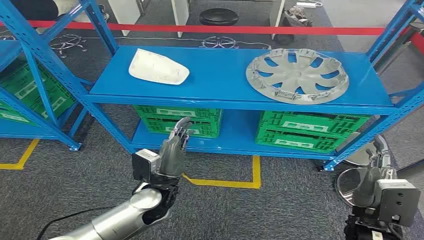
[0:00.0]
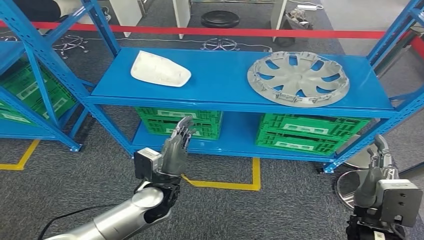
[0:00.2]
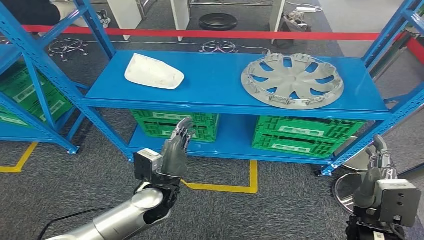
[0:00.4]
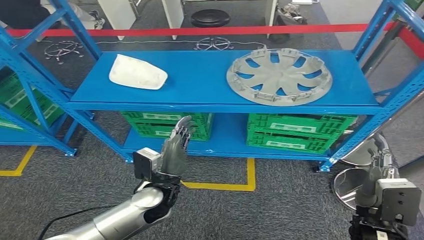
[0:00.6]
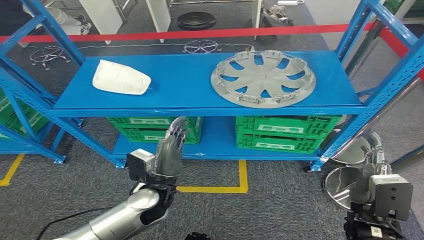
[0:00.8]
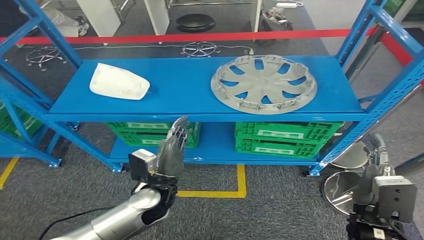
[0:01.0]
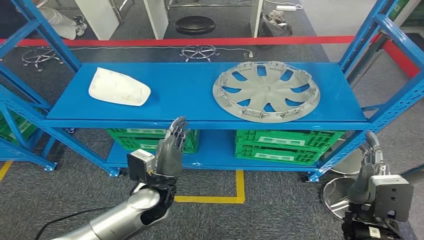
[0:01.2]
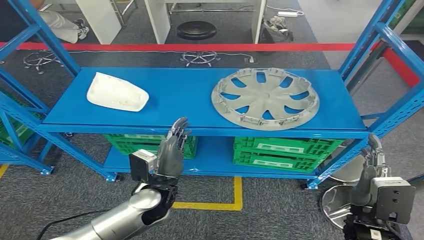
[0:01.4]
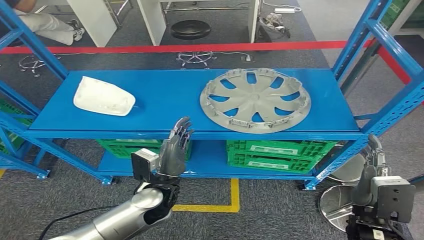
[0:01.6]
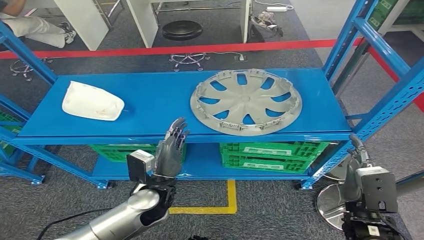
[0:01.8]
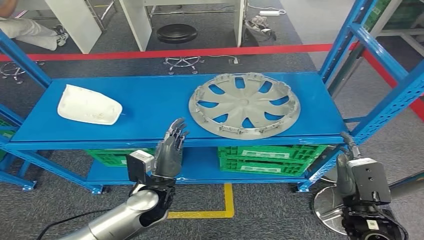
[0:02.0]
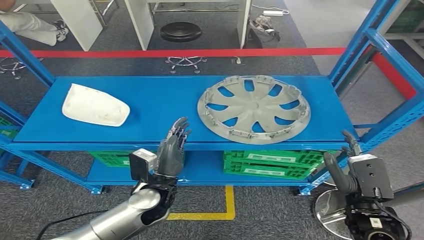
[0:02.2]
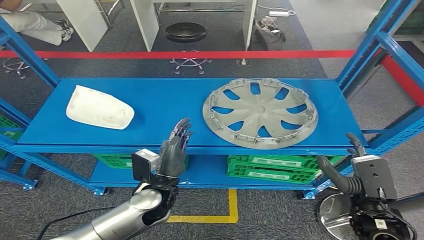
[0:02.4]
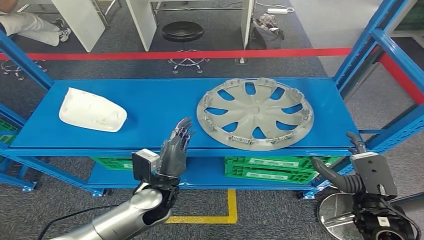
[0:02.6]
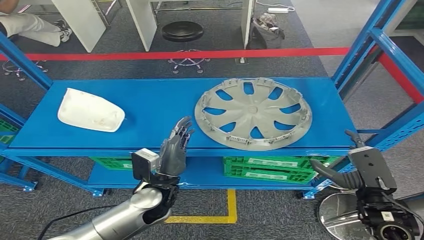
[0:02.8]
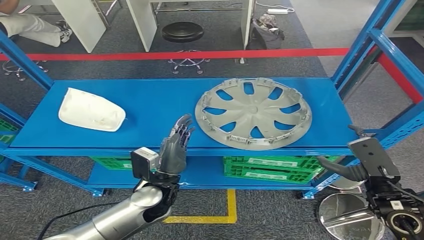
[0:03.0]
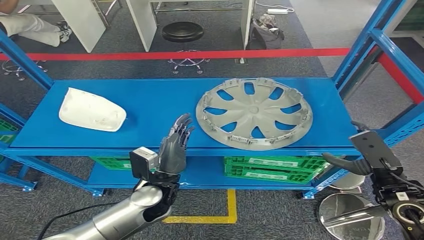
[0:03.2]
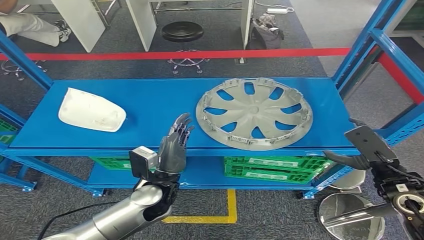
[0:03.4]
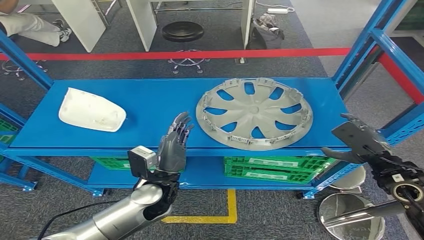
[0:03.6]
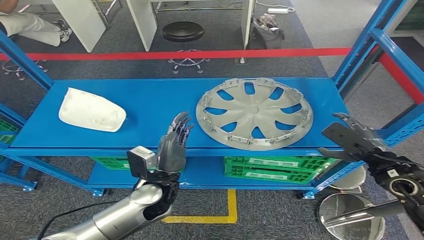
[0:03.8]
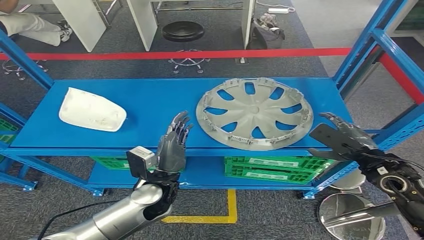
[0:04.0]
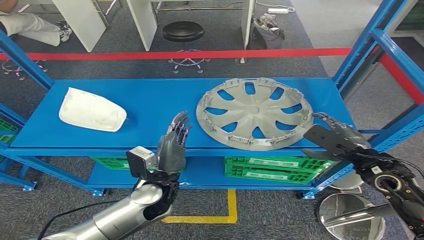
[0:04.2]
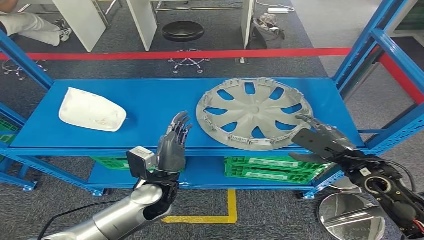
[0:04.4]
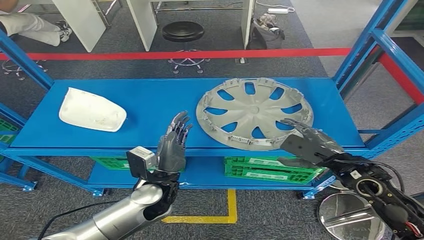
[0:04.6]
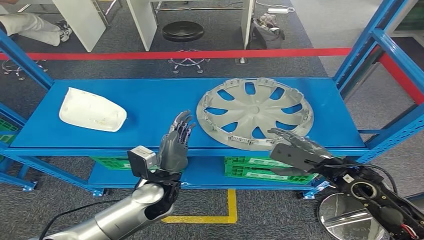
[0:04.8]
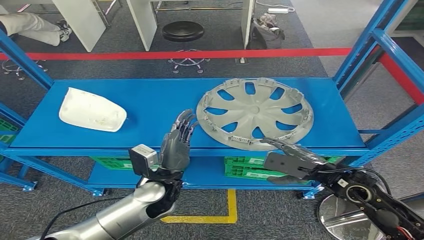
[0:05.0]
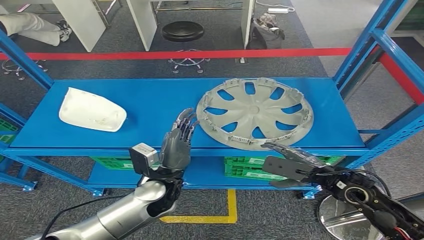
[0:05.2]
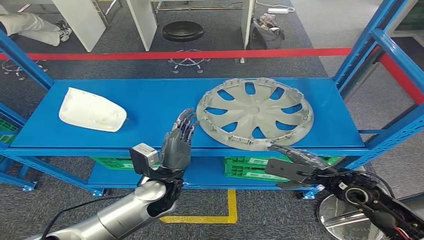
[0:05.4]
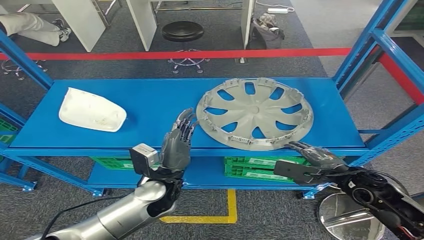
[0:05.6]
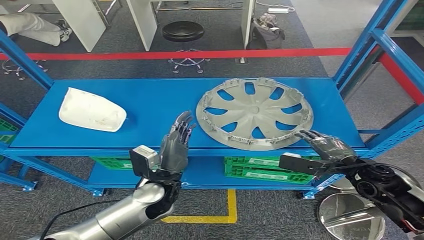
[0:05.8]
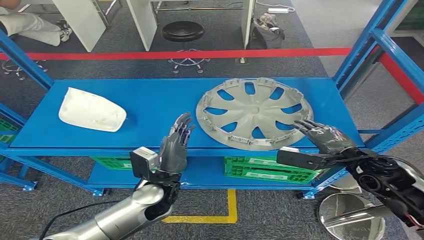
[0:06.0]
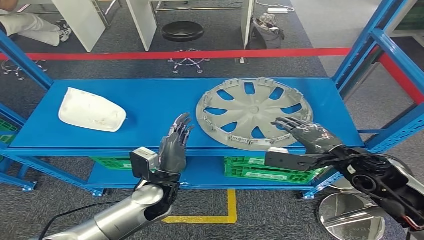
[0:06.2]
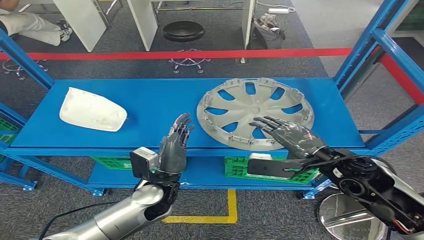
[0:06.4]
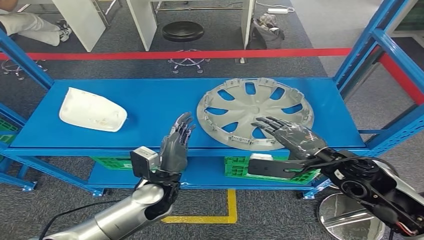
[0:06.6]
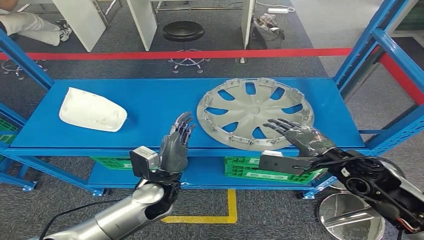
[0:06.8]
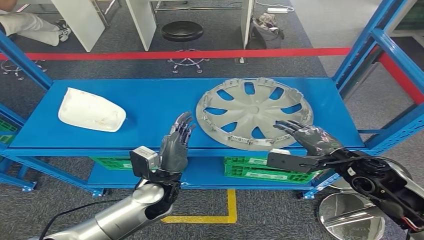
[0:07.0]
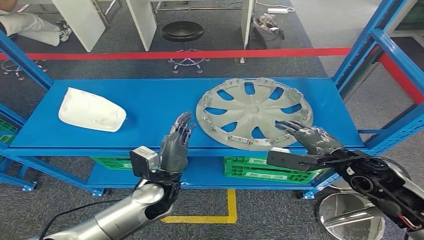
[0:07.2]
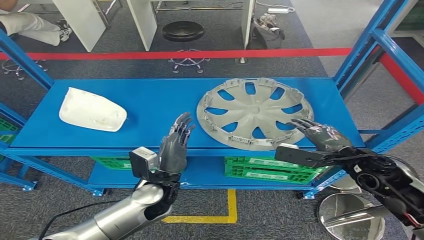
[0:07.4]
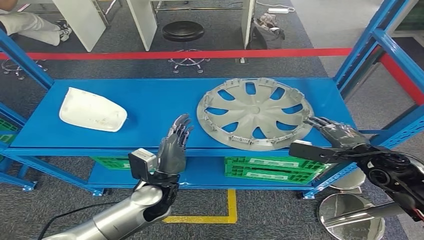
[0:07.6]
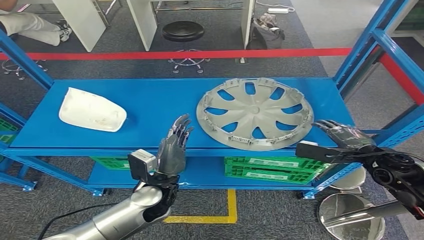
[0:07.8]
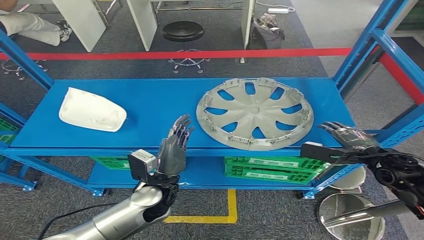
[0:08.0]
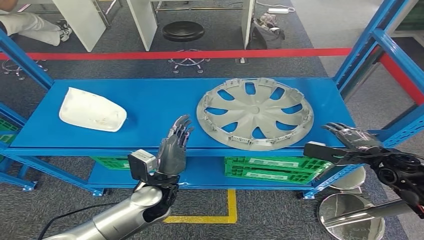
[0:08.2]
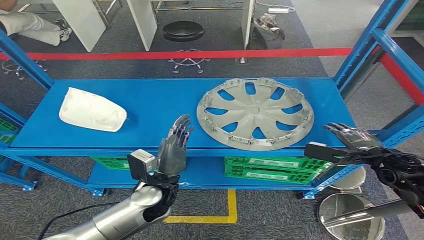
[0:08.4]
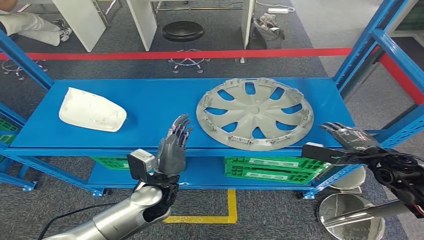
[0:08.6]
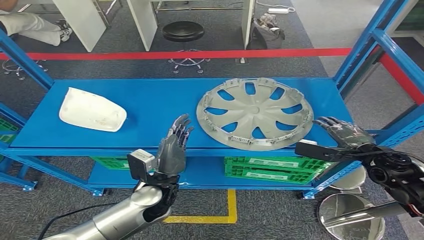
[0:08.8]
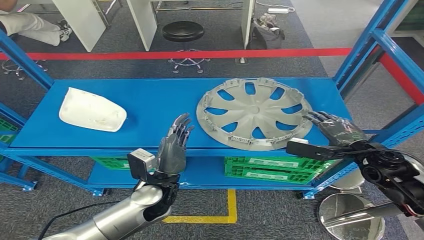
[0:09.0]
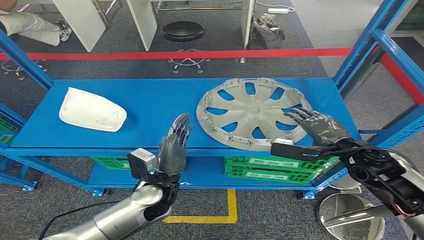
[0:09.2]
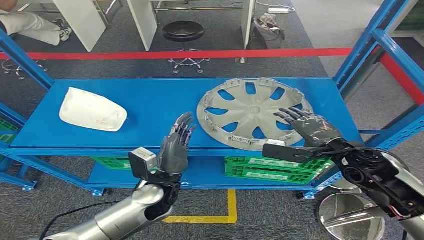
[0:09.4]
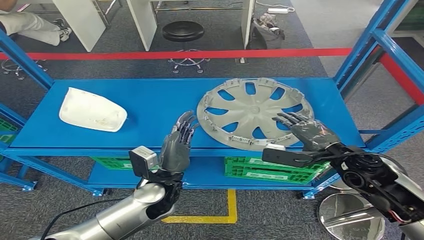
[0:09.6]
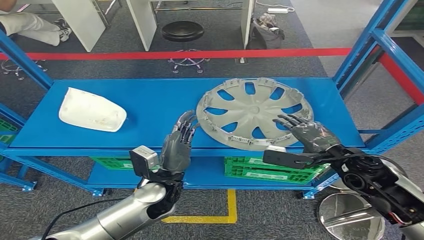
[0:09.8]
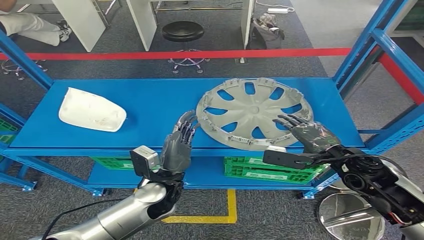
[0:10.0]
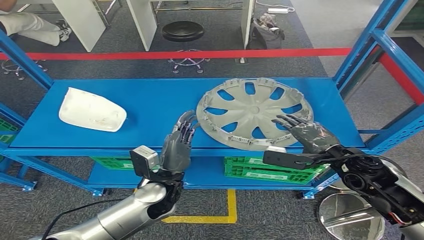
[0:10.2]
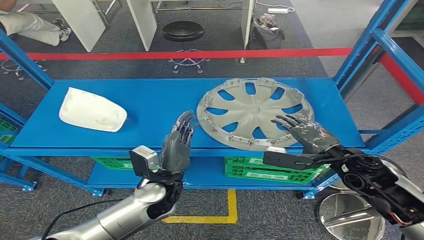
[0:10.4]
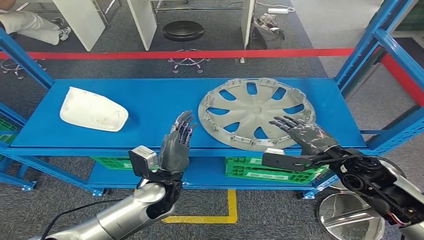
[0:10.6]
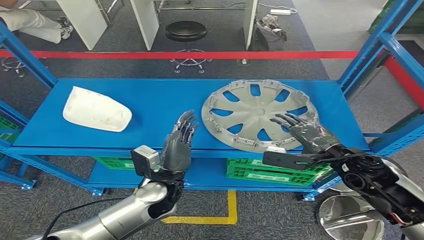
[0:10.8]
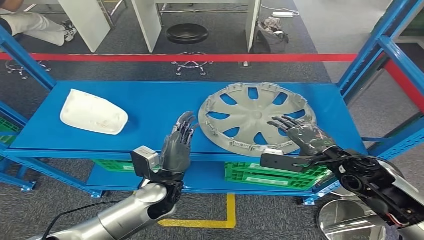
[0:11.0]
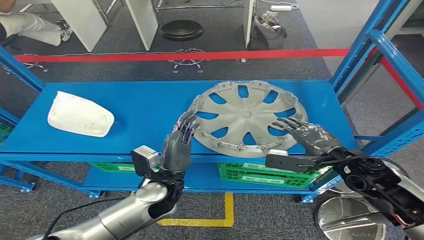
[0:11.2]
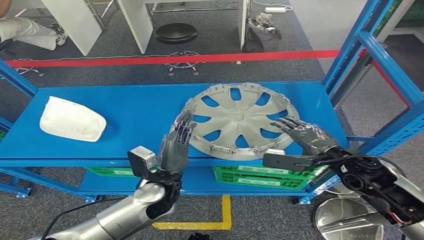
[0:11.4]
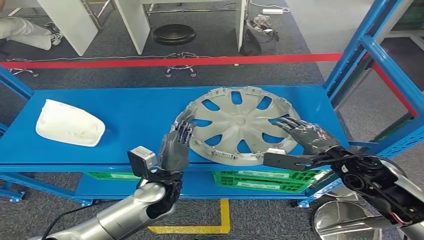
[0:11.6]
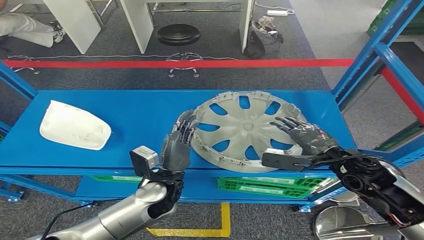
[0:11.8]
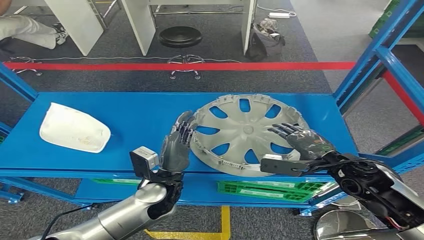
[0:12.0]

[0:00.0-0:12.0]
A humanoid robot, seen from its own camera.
0:03.0 to 0:04.4: The right hand shifts some 5 cm forward.
0:06.0 to 0:07.6: The right hand moves about 5 cm to the left and comes back.
0:07.6 to 0:09.0: The hands stay close to where they were, moving slightly.
0:09.0 to 0:10.4: The right hand is displaced to the left by about 5 cm.

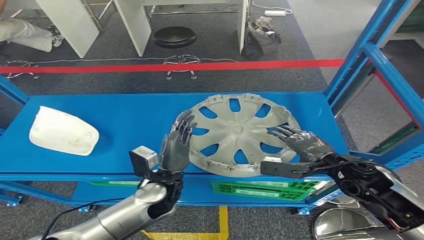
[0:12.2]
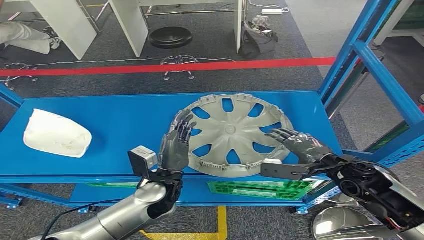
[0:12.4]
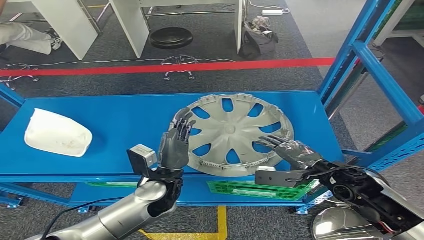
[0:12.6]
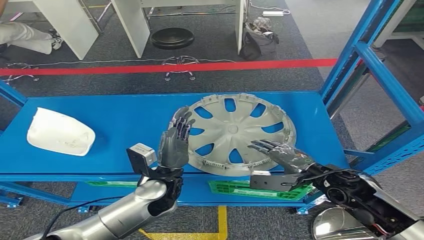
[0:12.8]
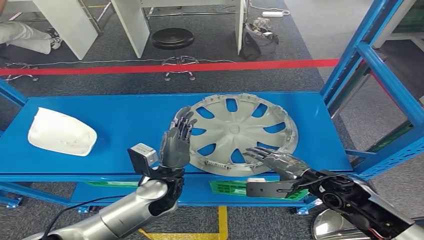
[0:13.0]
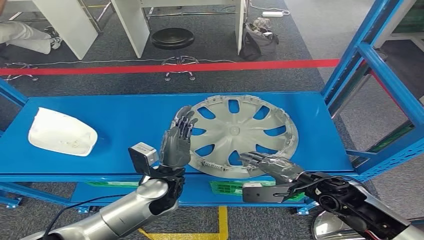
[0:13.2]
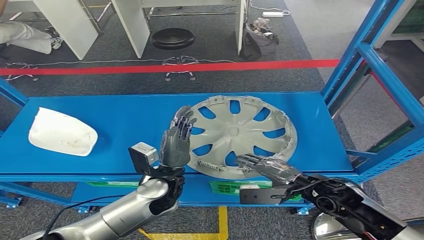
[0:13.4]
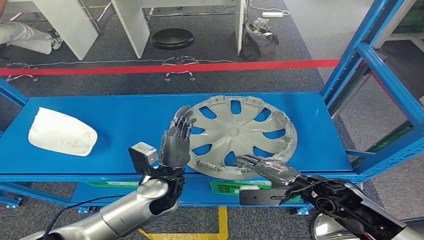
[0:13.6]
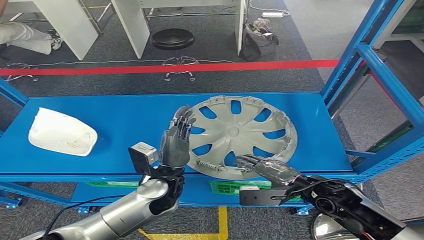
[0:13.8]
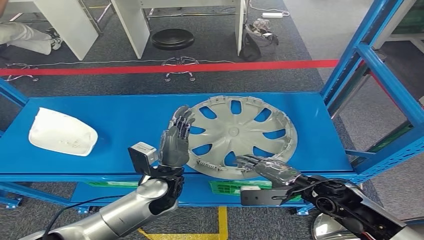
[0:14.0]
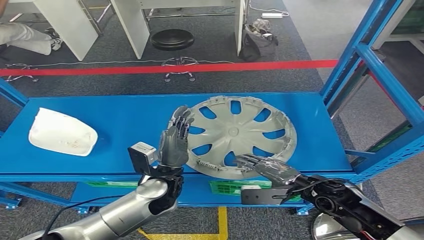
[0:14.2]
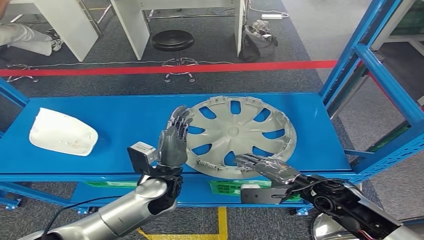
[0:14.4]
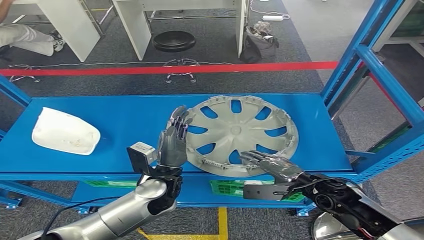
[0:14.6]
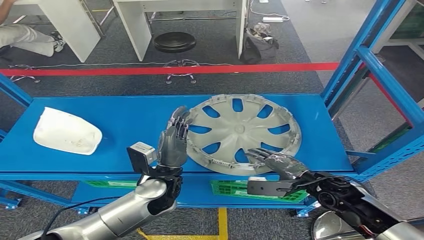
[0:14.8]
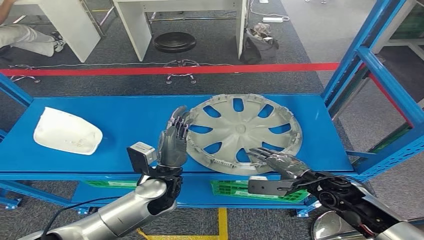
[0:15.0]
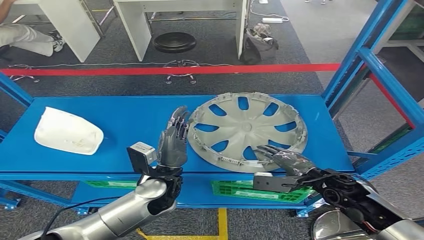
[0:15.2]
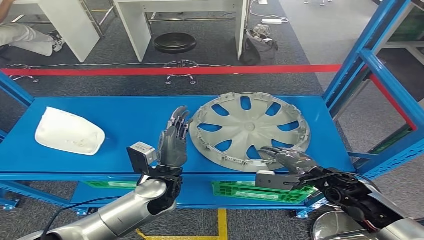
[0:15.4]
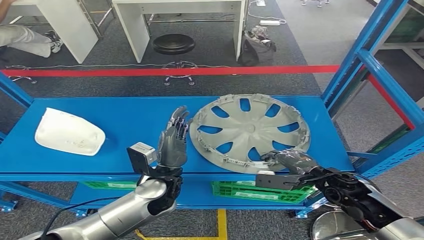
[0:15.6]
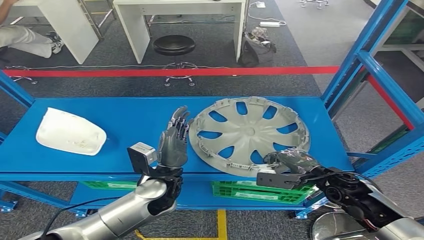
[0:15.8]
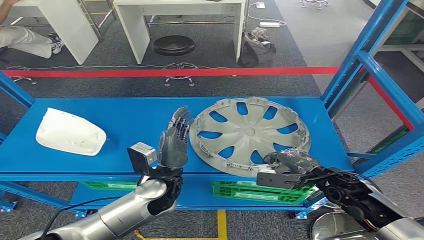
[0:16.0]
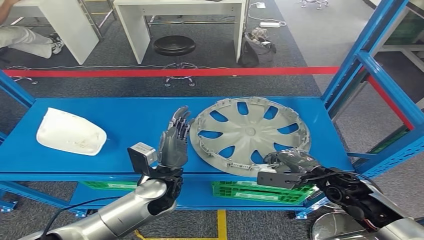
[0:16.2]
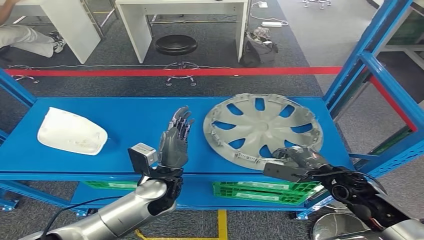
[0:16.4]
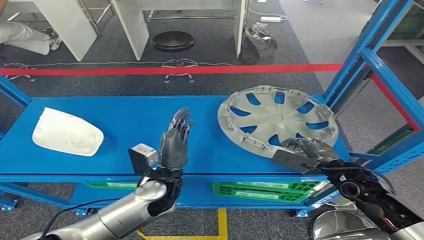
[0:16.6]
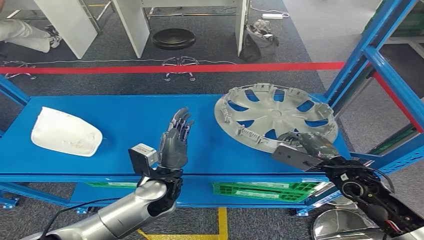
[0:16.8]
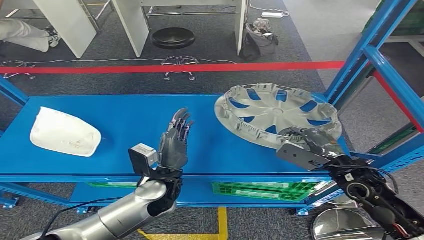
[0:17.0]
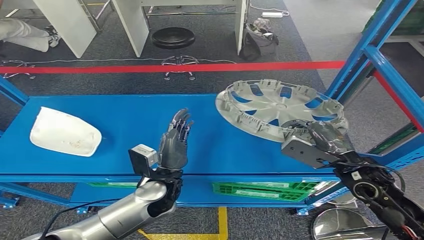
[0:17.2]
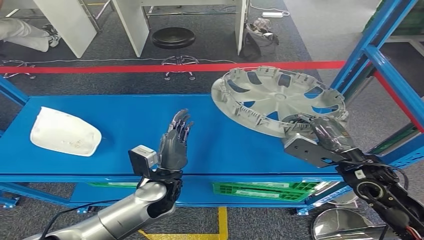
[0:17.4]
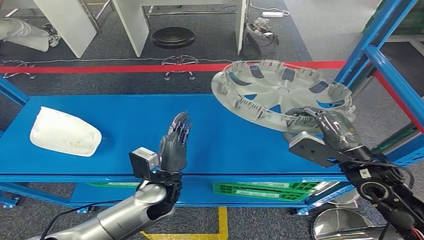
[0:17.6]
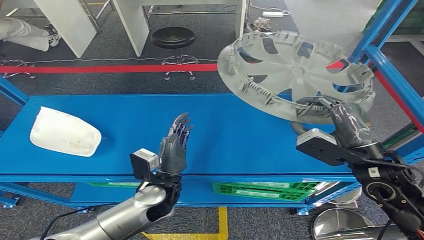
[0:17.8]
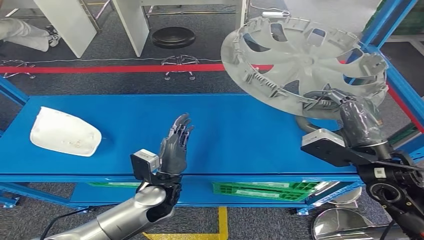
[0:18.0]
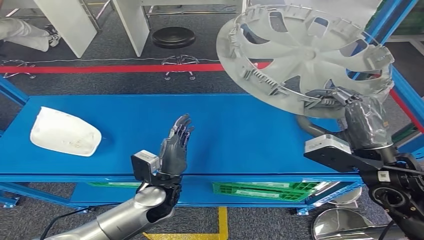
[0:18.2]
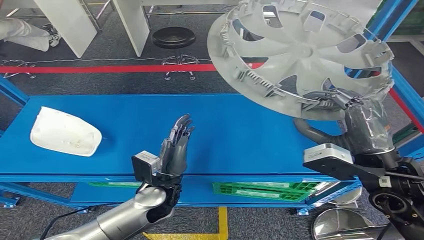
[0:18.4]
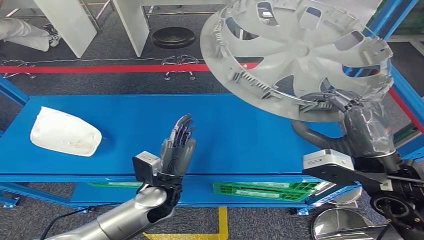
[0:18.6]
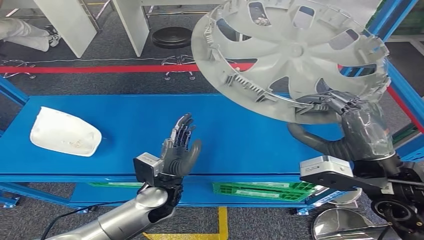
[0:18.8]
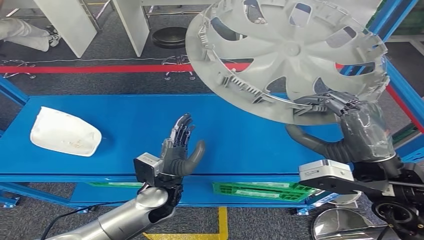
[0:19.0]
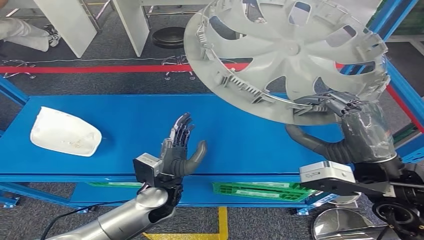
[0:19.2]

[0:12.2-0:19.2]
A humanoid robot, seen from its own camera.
Step, 0:12.2 to 0:18.0: Pick up the small parts from the shelf.
0:13.6 to 0:15.0: The right hand shifts by some 5 cm.
